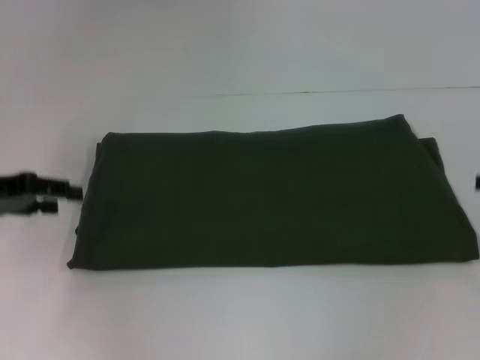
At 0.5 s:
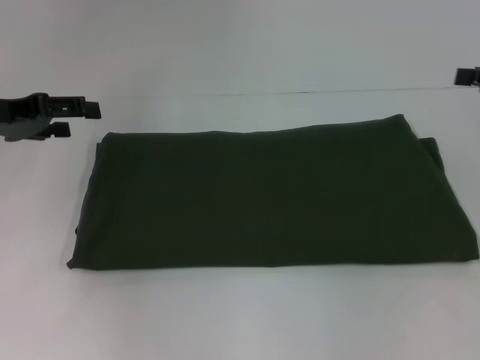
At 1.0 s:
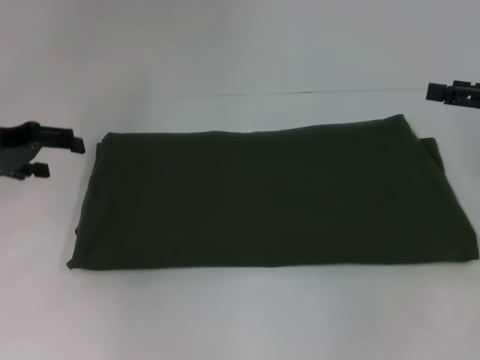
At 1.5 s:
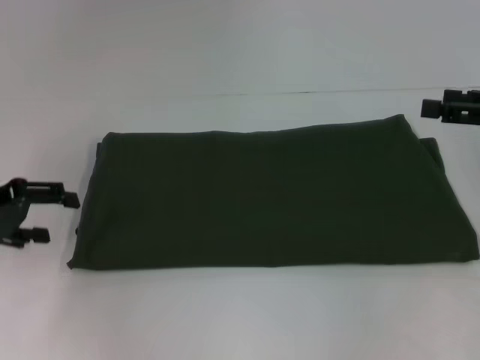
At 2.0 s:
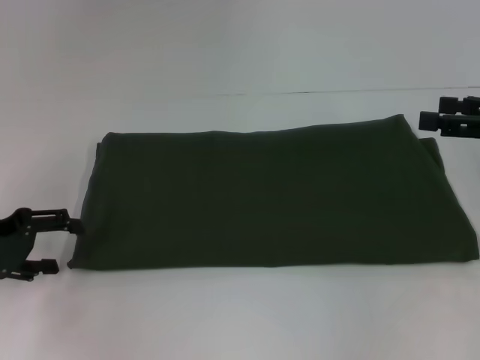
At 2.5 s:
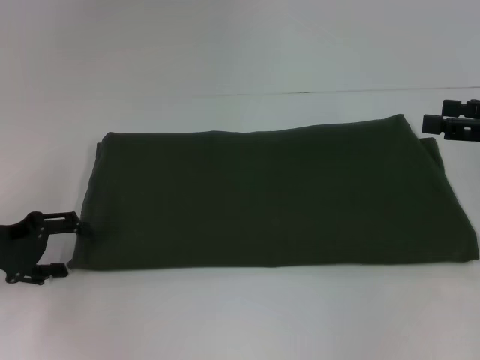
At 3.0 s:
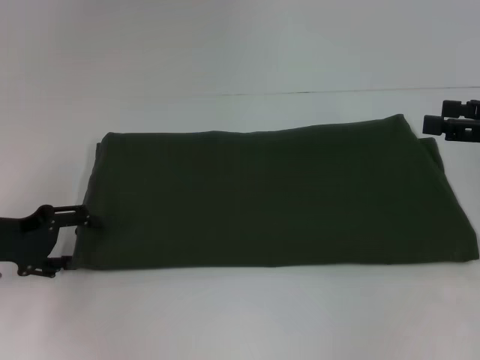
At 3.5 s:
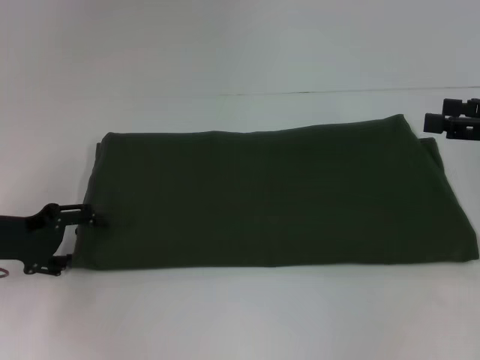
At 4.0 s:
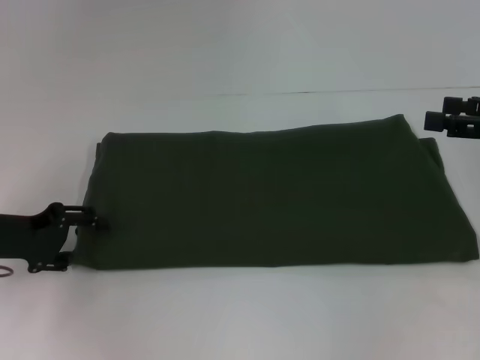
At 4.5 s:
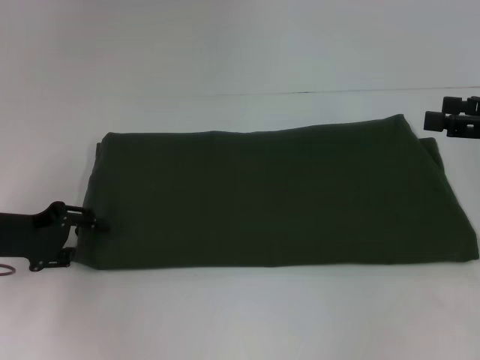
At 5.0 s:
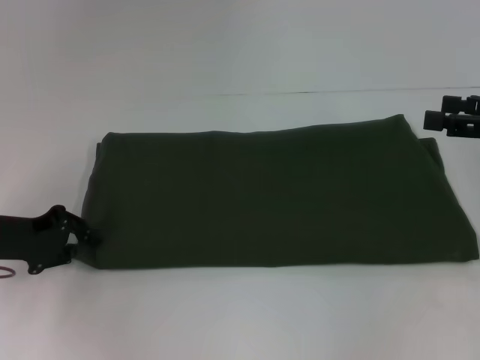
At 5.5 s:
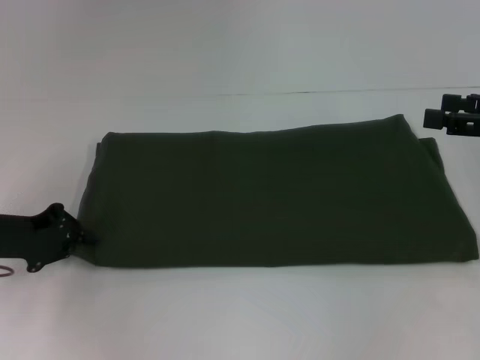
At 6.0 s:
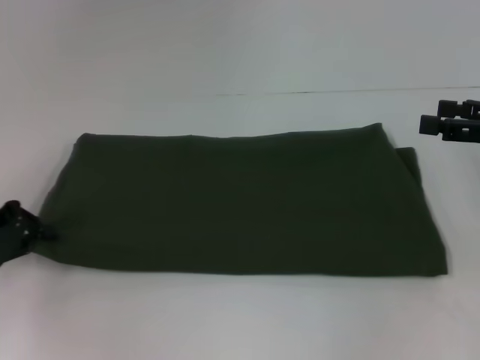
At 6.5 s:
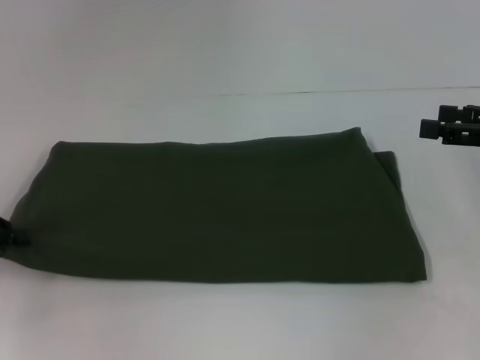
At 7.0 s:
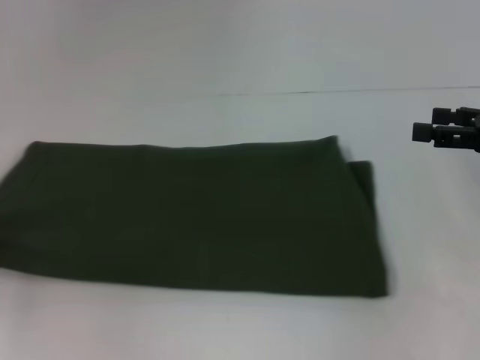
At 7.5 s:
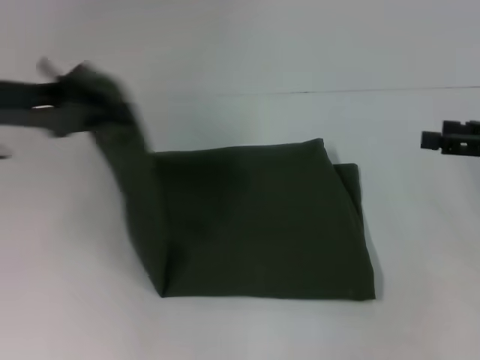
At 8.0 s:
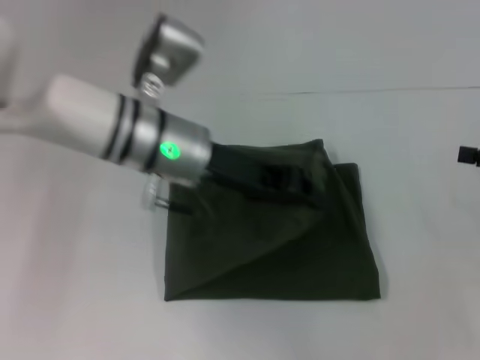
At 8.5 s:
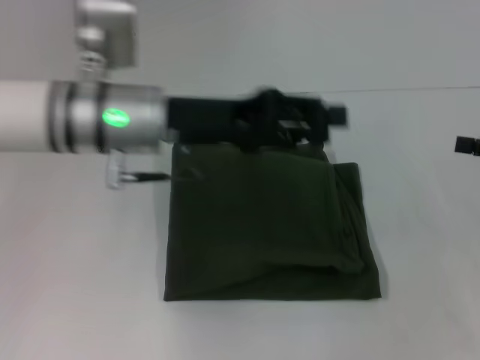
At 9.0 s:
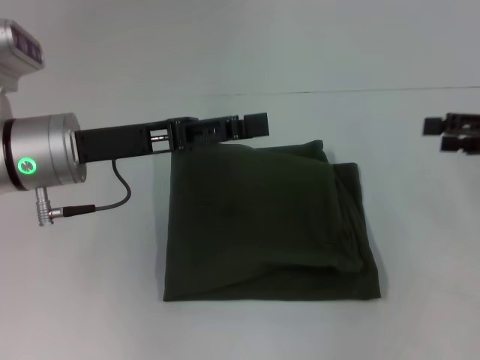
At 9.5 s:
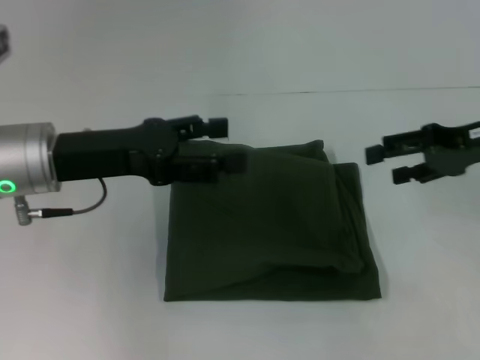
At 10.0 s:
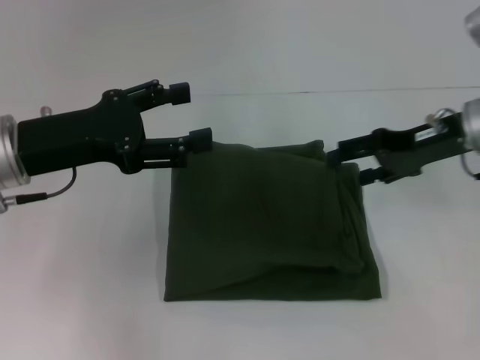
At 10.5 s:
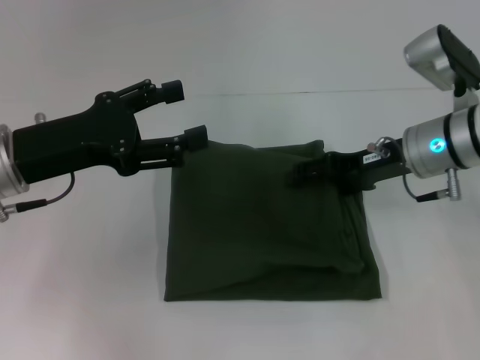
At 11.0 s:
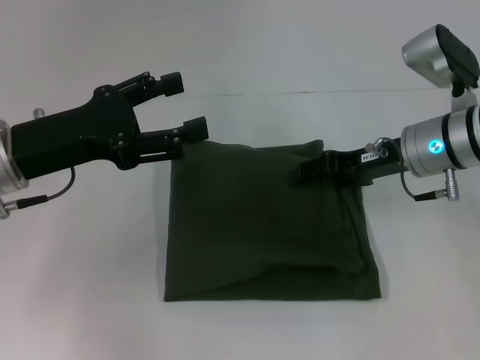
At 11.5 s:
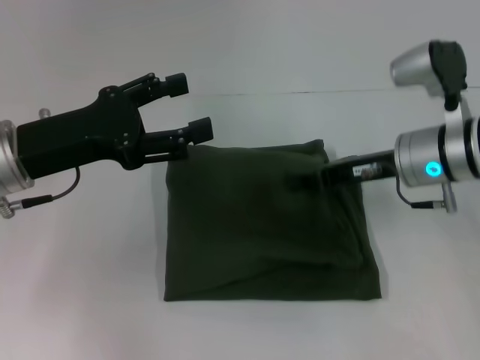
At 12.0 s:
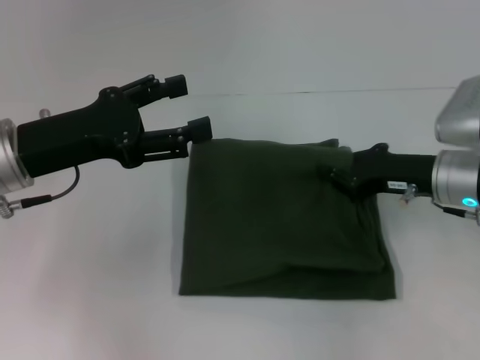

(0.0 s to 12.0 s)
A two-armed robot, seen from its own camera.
Step, 0.0 s - 8.0 s: Fold the clothes with your left hand.
0.0 s - 2.0 s: The right gripper shifts by approximately 5 cm, and opens up. Meanwhile the left gripper opens its fingers.
2.0 s - 4.0 s: The grippers make only small movements.
4.0 s - 6.0 s: The left gripper closes.
6.0 s - 8.0 s: The right gripper shifts by roughly 5 cm; the left gripper heads to the right, covering approximately 25 cm.
8.0 s - 10.0 s: The right gripper heads to the left and forward, covering roughly 15 cm, while the left gripper shifts some 15 cm to the left, and opens its fingers.
10.0 s - 12.0 s: The right gripper shifts about 5 cm downward, and closes.

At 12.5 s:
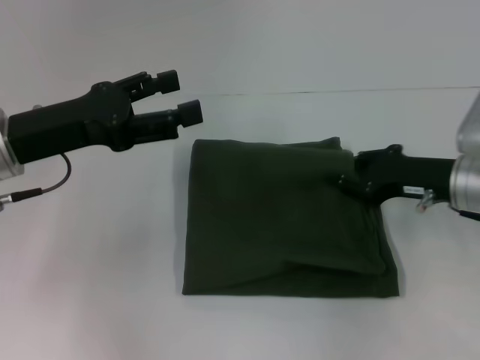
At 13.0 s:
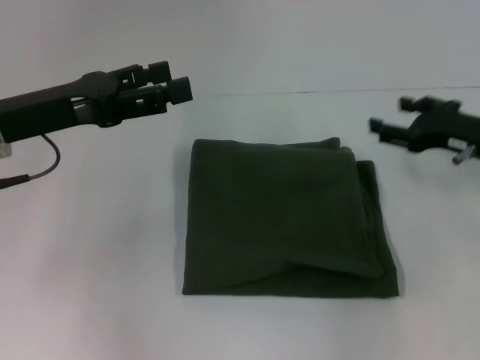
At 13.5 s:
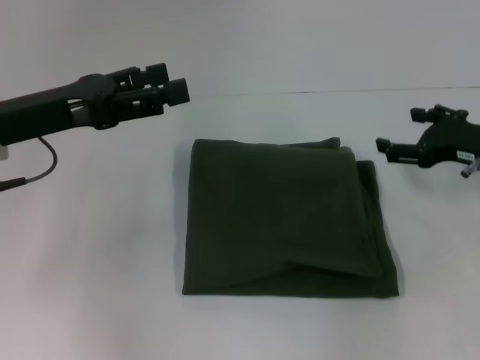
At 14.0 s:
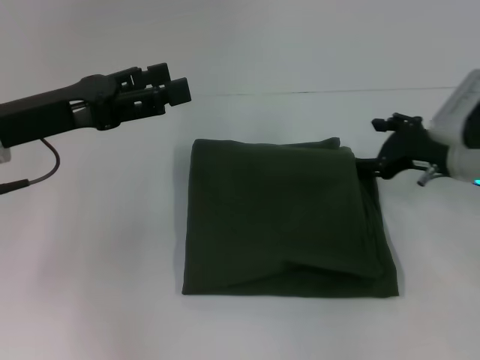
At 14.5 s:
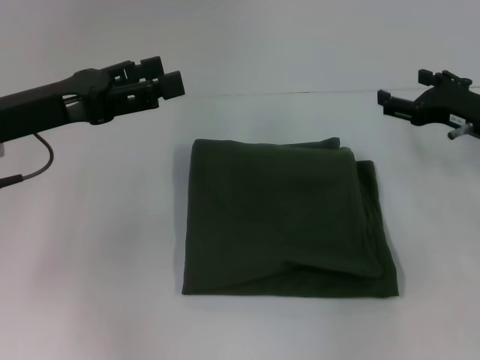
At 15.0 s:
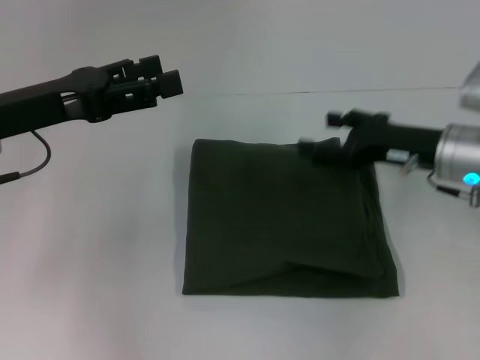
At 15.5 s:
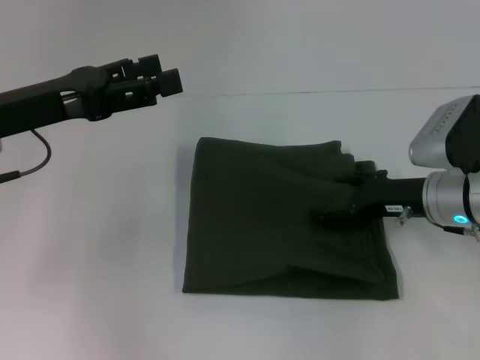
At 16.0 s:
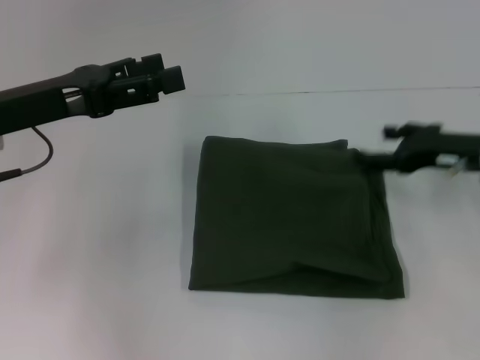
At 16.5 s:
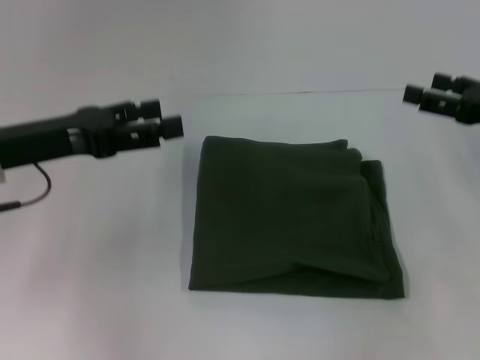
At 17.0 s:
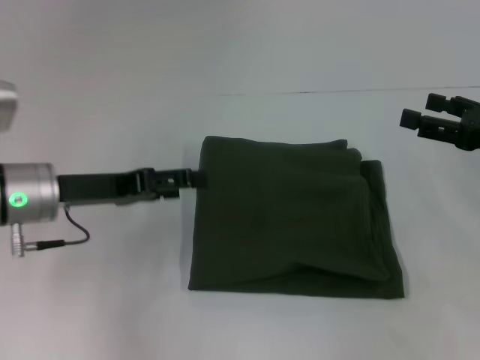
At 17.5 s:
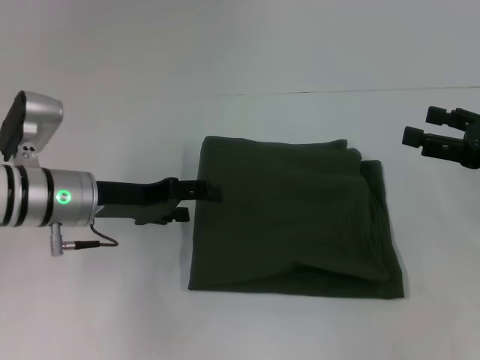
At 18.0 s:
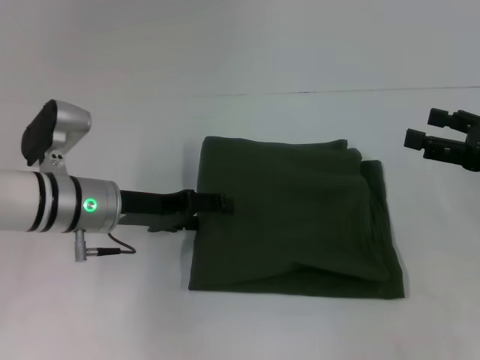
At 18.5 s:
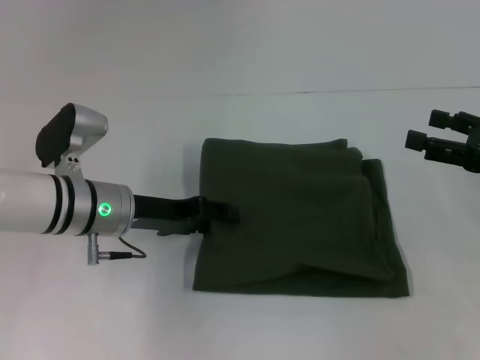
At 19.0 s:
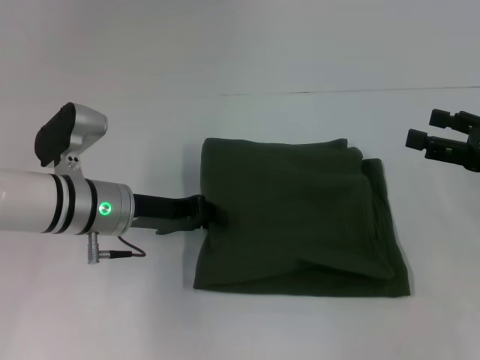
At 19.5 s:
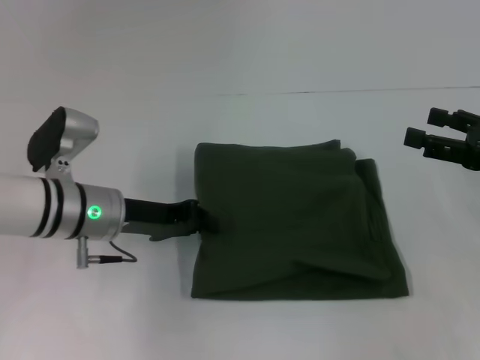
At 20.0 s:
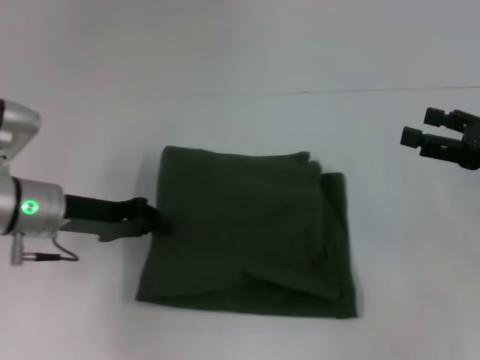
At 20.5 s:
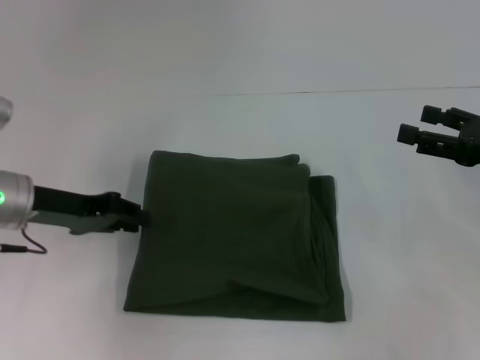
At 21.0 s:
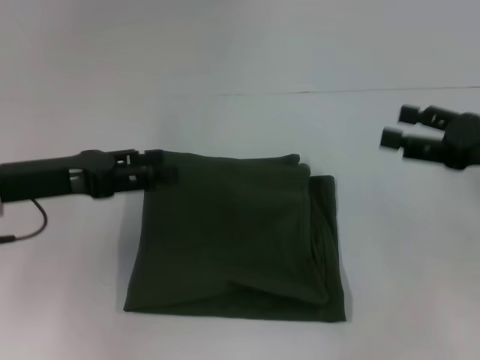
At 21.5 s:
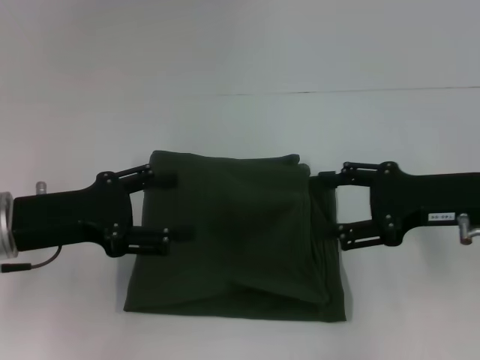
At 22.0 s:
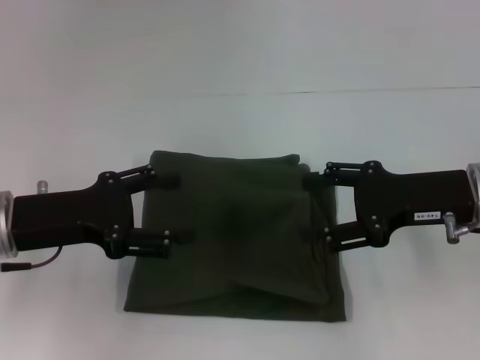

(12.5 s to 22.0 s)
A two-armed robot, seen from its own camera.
12.5 s - 14.5 s: The right gripper ends up roughly 5 cm from where it was, and opens up.
14.5 s - 16.5 s: The right gripper ends up approximately 5 cm from where it was.
16.5 s - 18.0 s: The left gripper is displaced downward and to the right by about 10 cm.
18.0 s - 20.0 s: The left gripper goes approximately 5 cm to the left, and closes.
20.0 s - 22.0 s: The left gripper is displaced backward by approximately 5 cm, and opens up. Meanwhile the right gripper moves to the left, roughly 10 cm.

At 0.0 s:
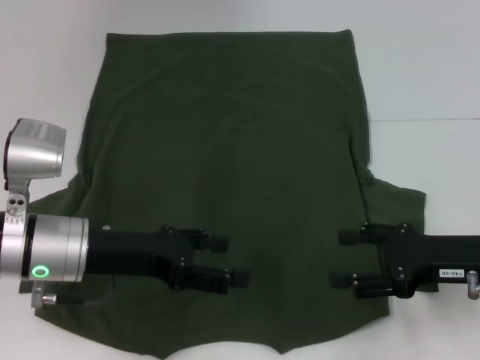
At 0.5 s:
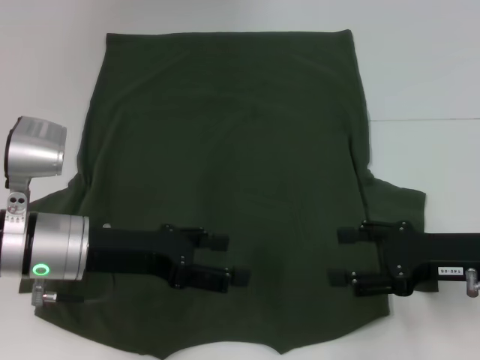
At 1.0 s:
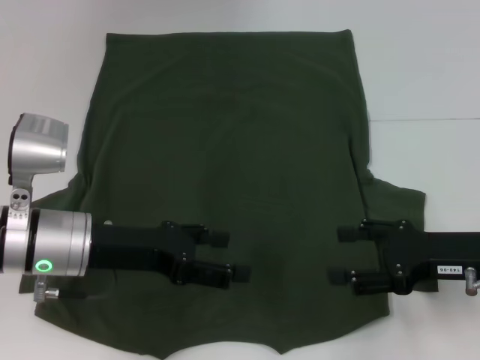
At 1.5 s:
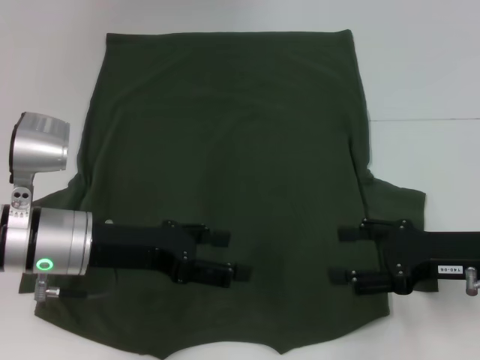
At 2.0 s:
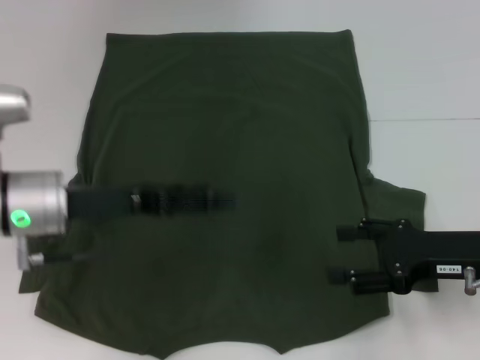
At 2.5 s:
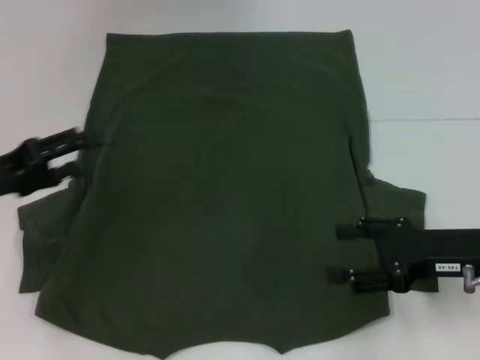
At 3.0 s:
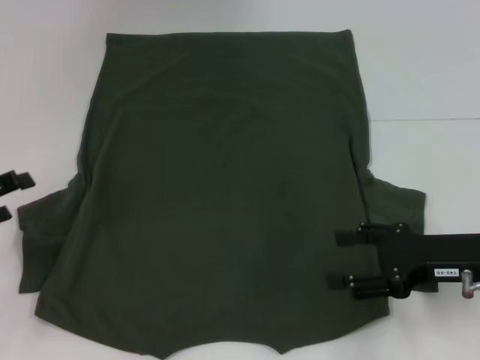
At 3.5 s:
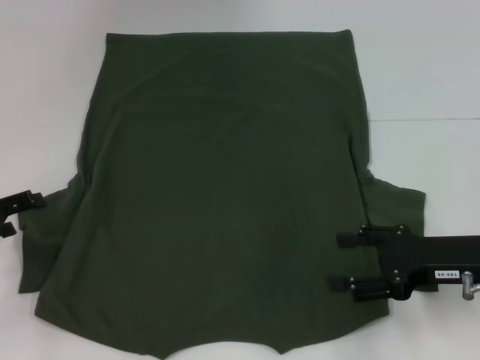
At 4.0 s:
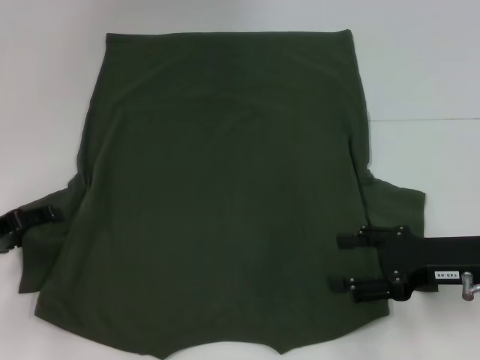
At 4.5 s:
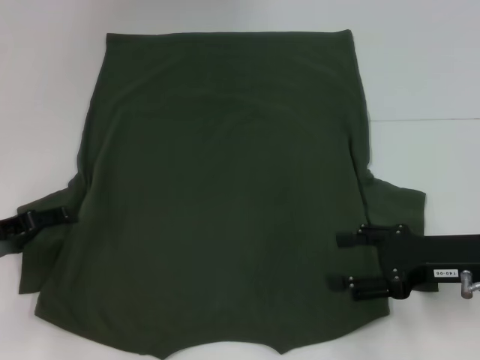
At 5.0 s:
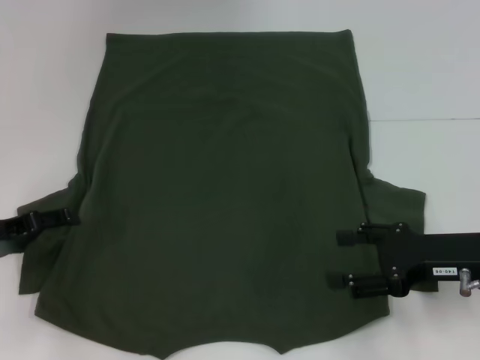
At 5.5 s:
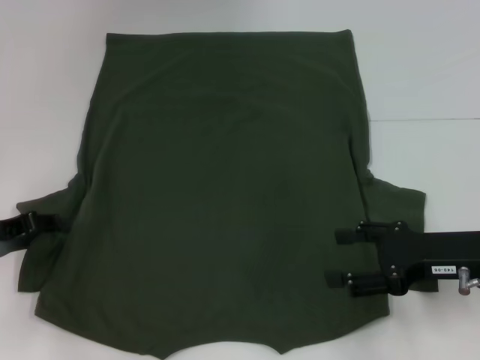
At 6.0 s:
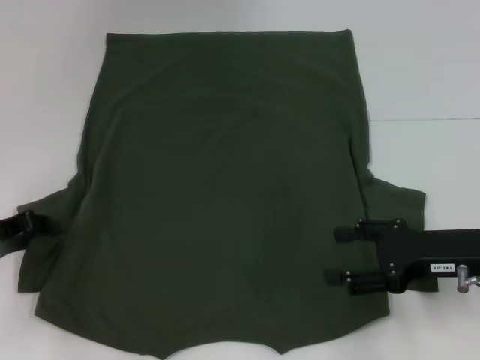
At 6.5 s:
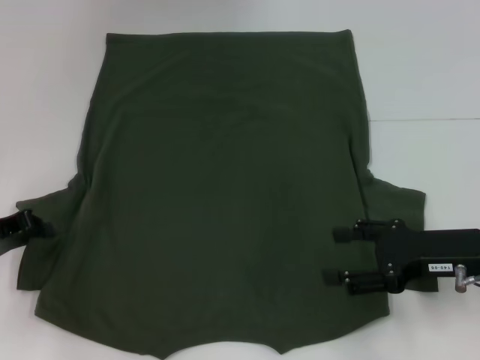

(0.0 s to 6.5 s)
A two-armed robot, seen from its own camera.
0.0 s - 2.0 s: The grippers stay close to where they were, moving slightly.
2.0 s - 4.5 s: The left gripper heads to the left and downward, covering approximately 15 cm.
4.5 s - 6.5 s: The left gripper closes.
